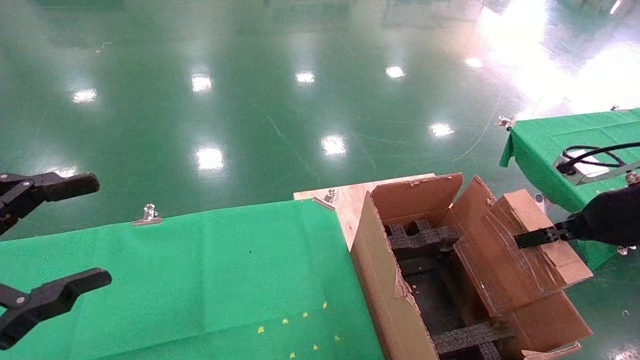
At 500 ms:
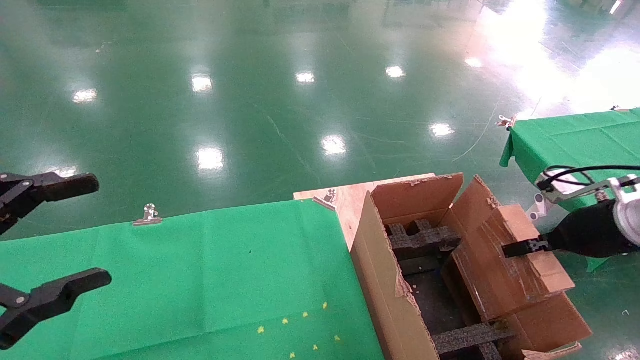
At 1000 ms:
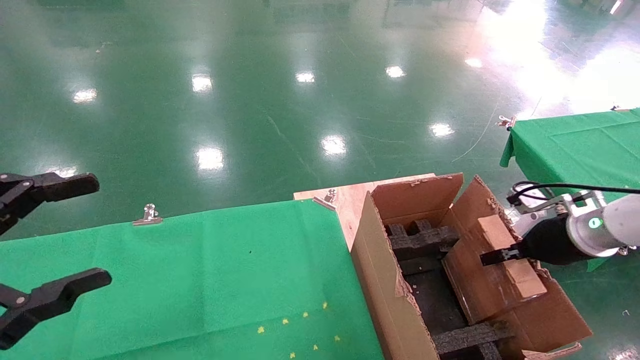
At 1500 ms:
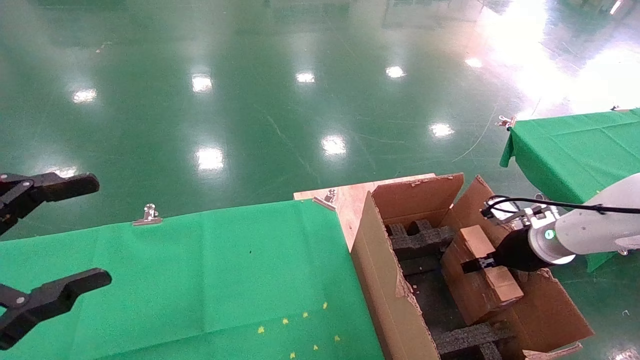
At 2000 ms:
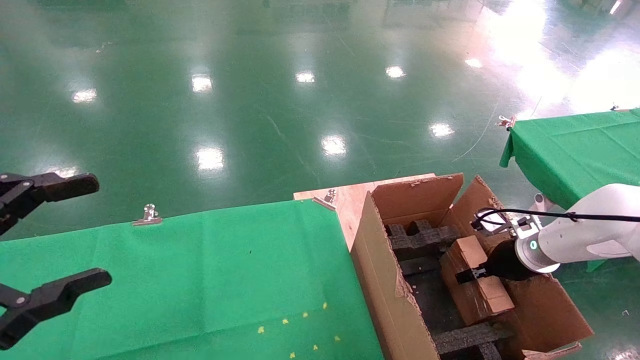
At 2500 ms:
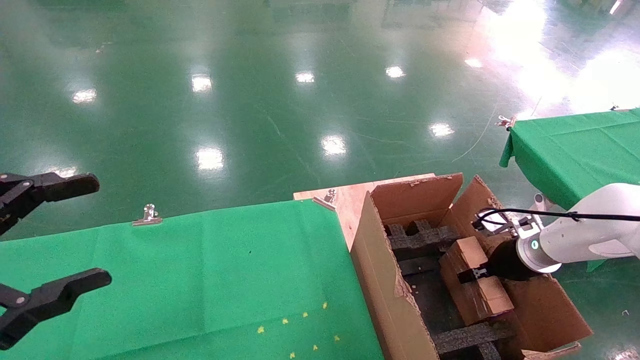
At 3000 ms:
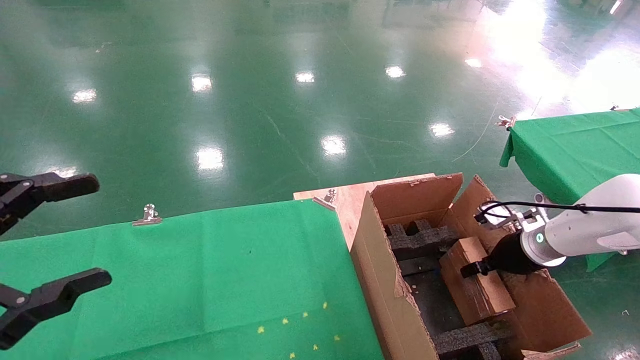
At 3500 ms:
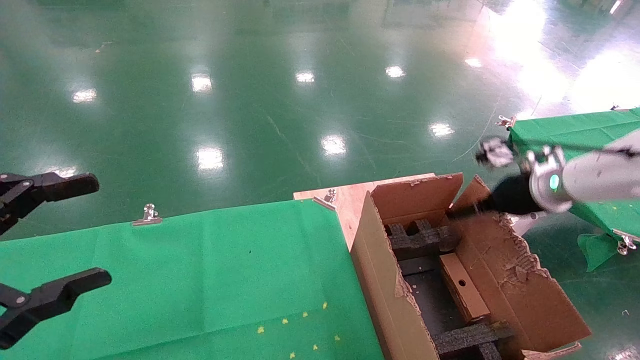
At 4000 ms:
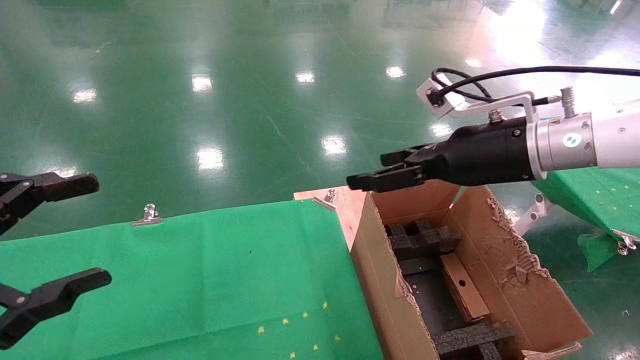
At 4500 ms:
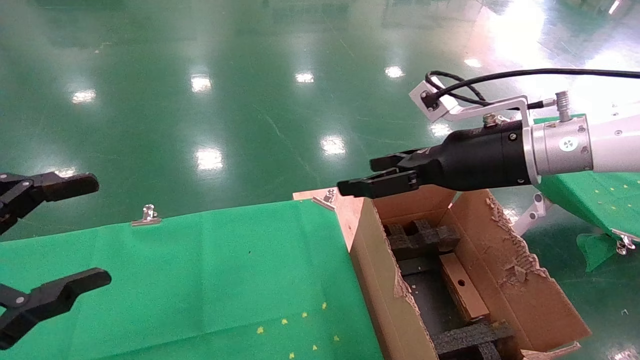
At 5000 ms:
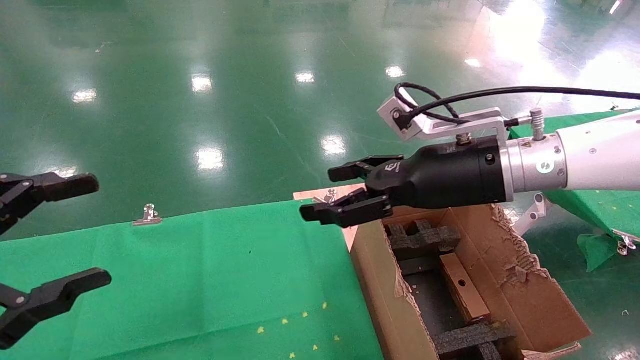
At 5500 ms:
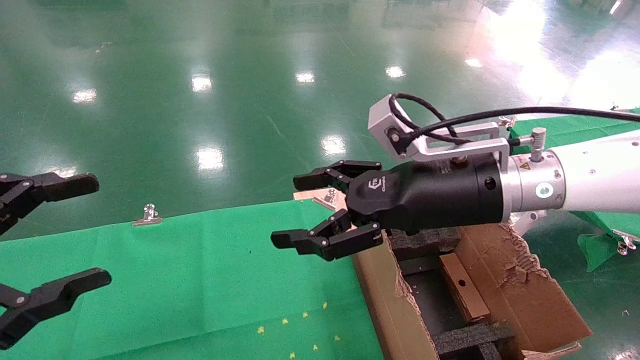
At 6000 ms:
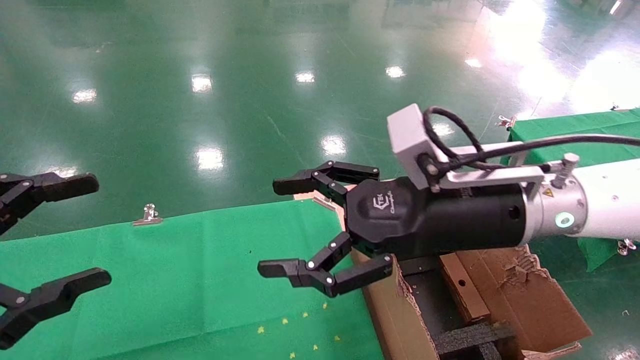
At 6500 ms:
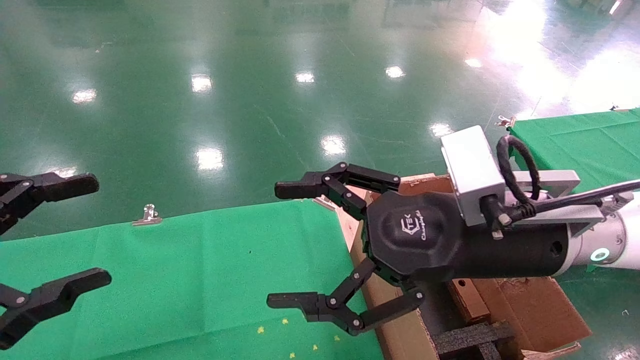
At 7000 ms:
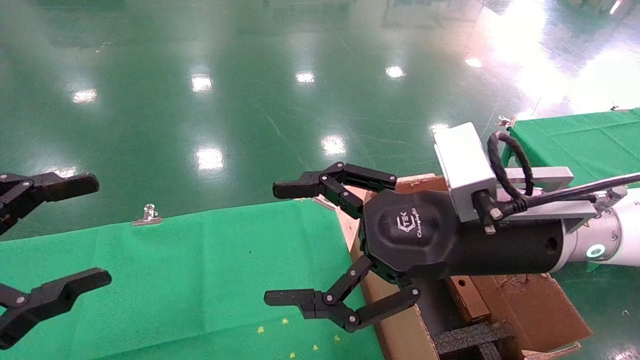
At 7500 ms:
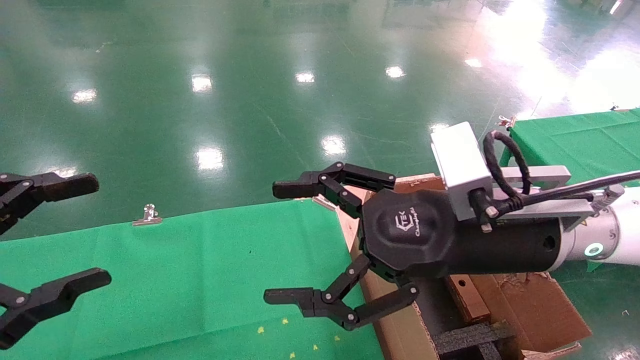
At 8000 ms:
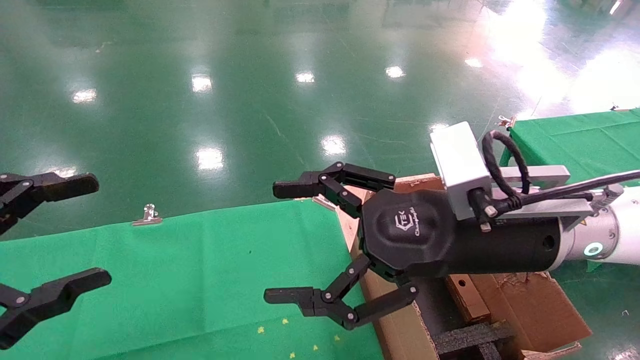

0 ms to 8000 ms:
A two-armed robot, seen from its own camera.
Task of the whole recording: using a robotic arm to pick up a cardboard box and palace it the carton.
Step, 0 ms to 3500 ms: Place the mouse and the power cord paper box into the container.
0 ms to 2000 ms: The right gripper goes roughly 20 cm downward and forward.
2000 ms to 4000 ms: The right gripper shifts roughly 25 cm upward and to the left, and opens.
4000 ms to 6000 ms: The right gripper goes about 15 cm to the left and backward.
6000 ms to 8000 ms: The grippers make only small movements.
